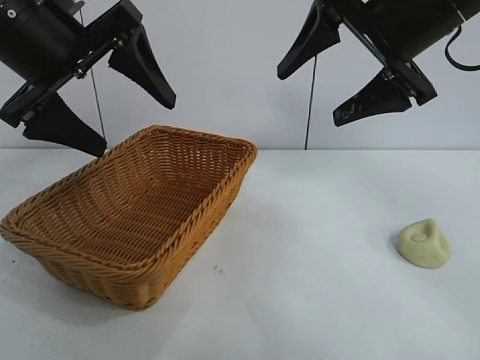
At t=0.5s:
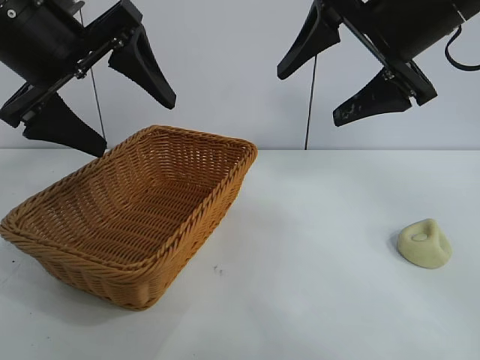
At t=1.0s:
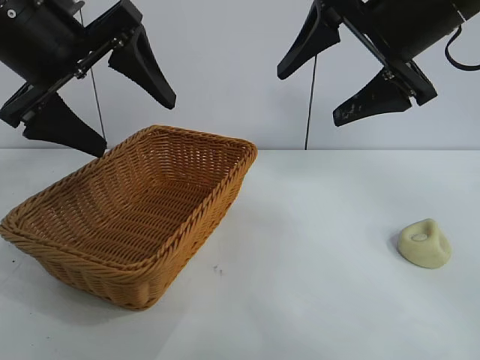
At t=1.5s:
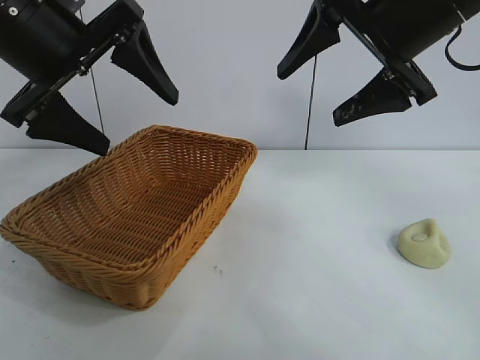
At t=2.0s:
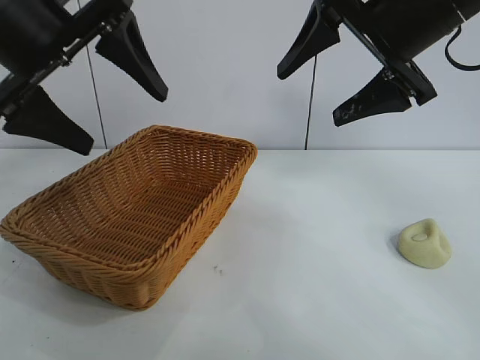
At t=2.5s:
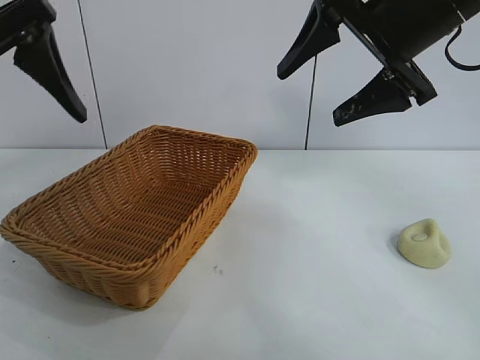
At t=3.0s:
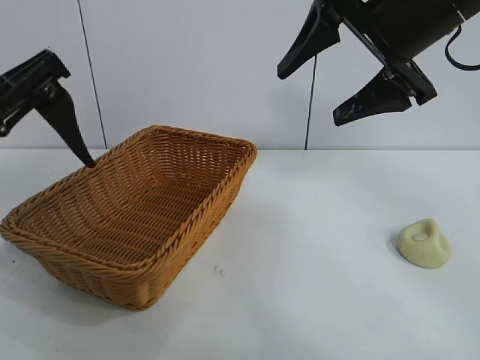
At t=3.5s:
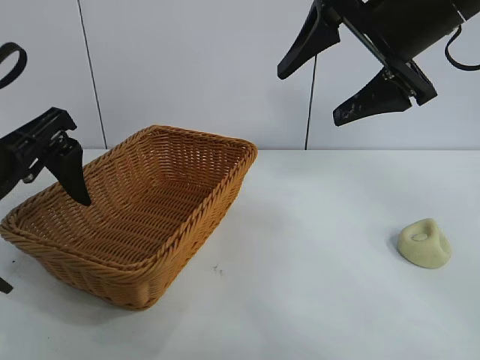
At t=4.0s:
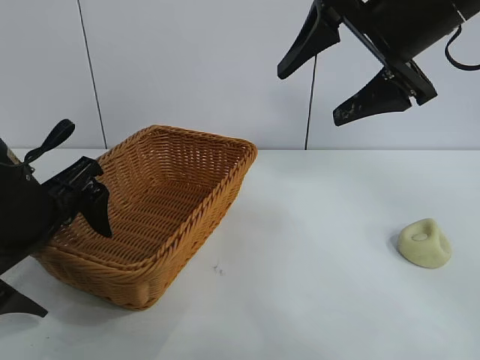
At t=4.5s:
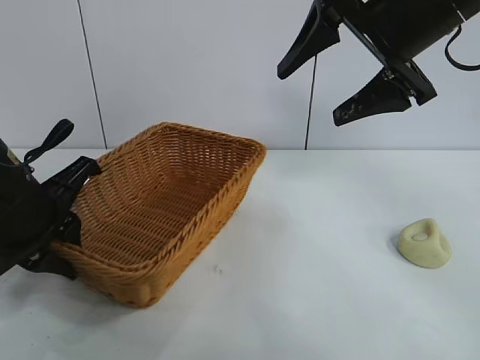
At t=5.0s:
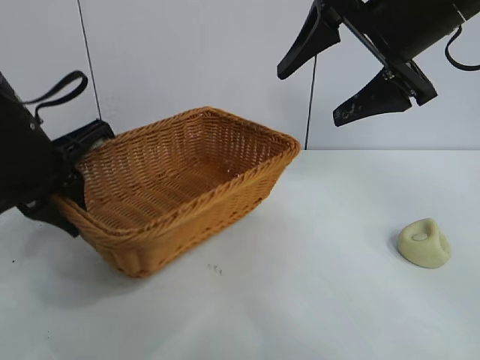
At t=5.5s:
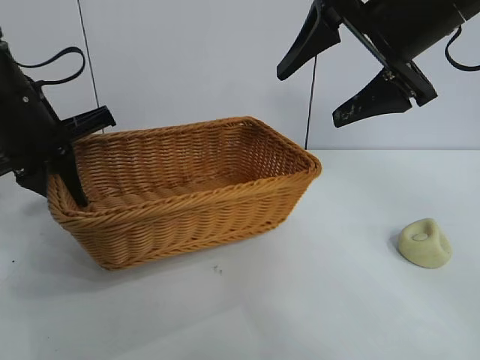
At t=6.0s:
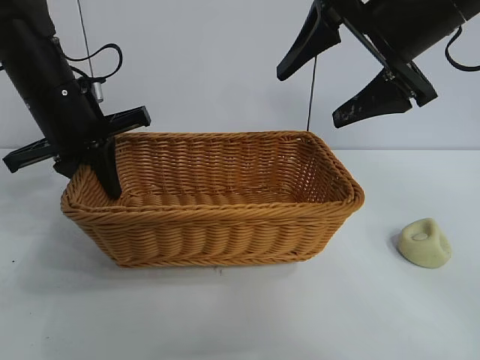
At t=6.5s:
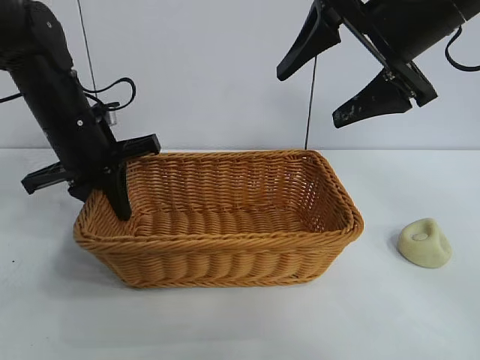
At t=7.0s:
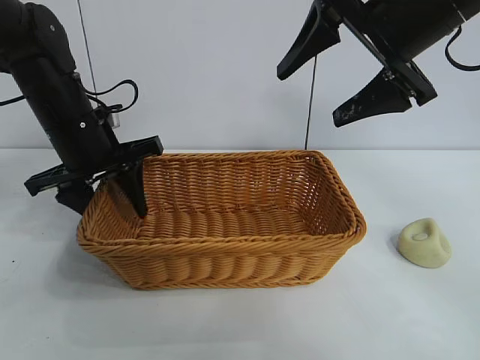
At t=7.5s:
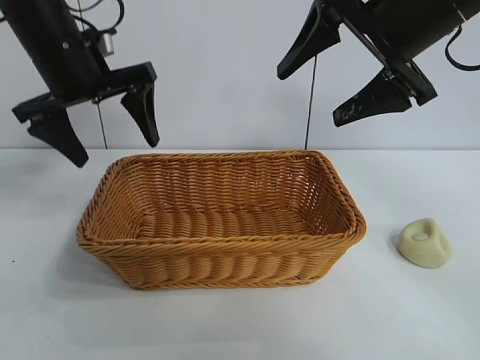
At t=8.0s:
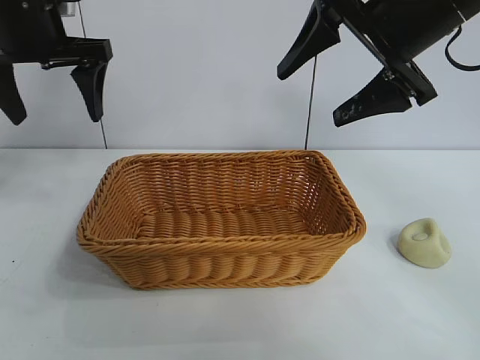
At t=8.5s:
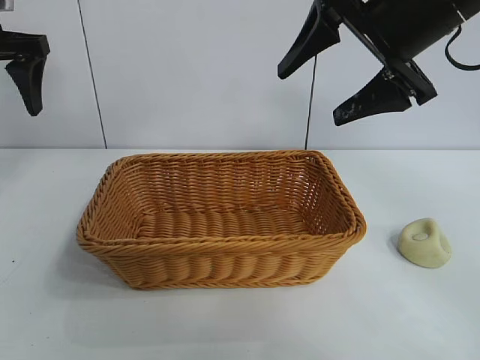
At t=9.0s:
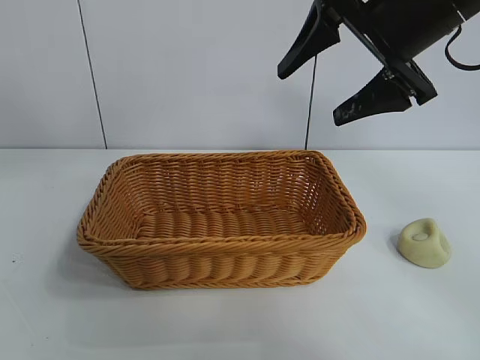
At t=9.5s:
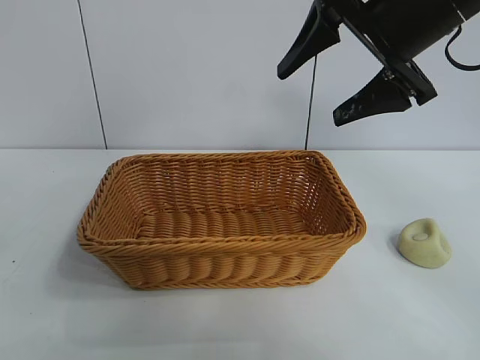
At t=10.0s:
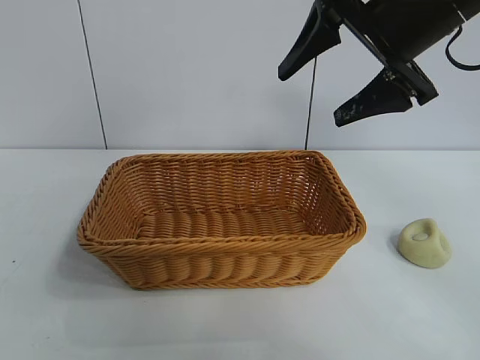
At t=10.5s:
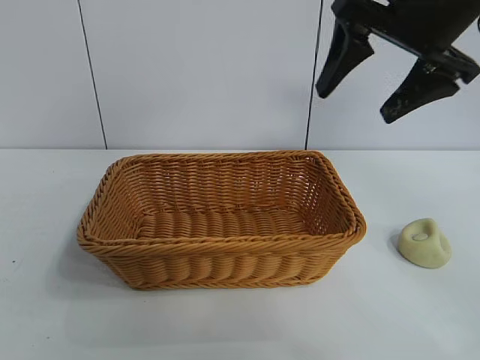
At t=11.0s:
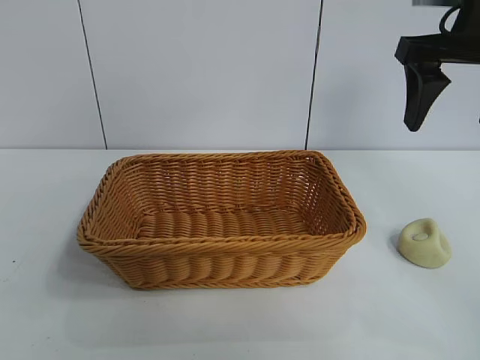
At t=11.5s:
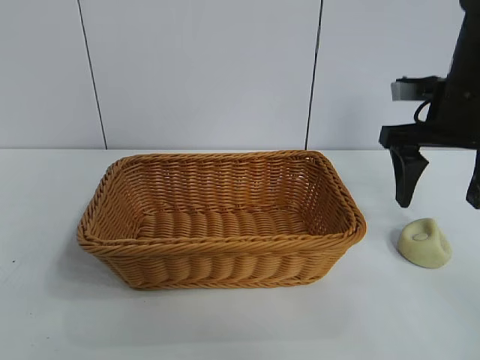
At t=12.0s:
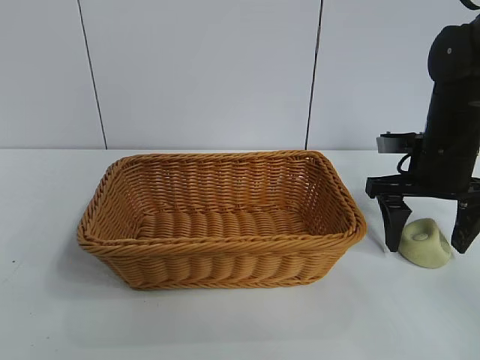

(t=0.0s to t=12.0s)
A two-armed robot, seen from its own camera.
Task of the whole recording: pick up the egg yolk pastry and put it into the basket.
Step, t=1.5s - t=4.5s: Grasp the basket with left gripper.
Step, t=5.0s - t=7.0s: Place the basket in the center of view with left gripper.

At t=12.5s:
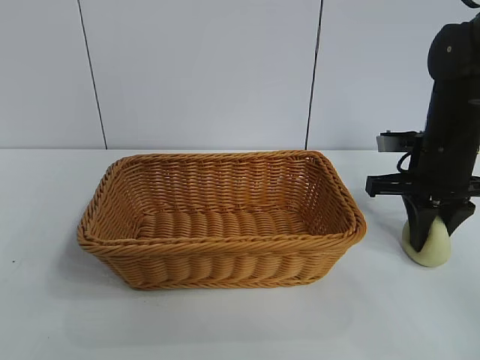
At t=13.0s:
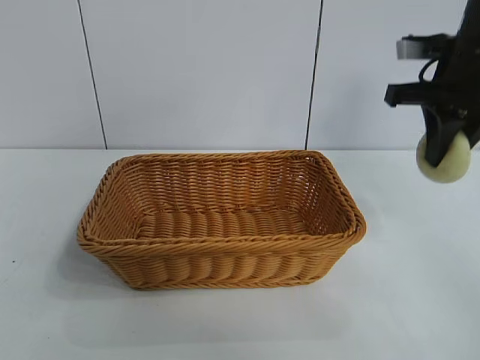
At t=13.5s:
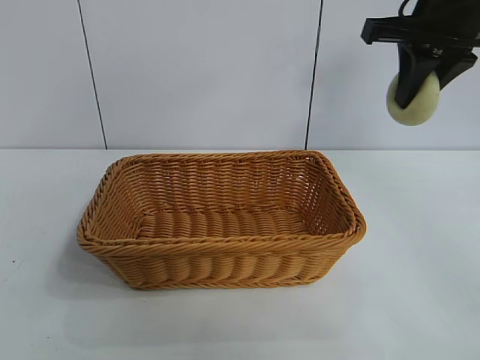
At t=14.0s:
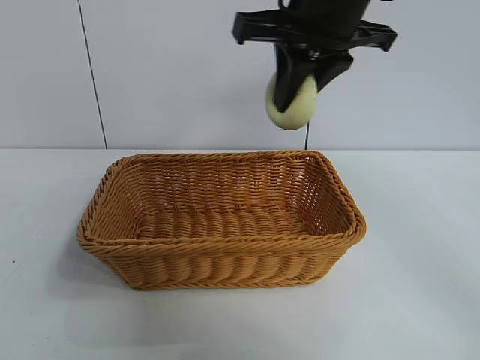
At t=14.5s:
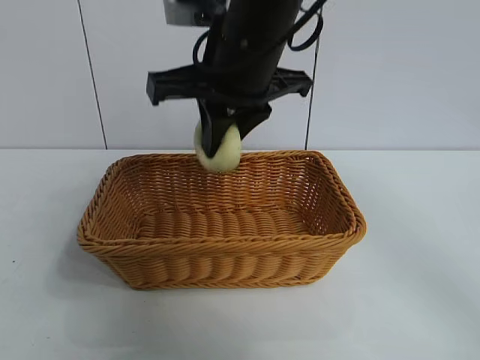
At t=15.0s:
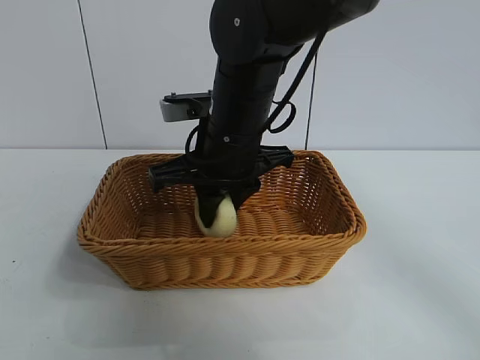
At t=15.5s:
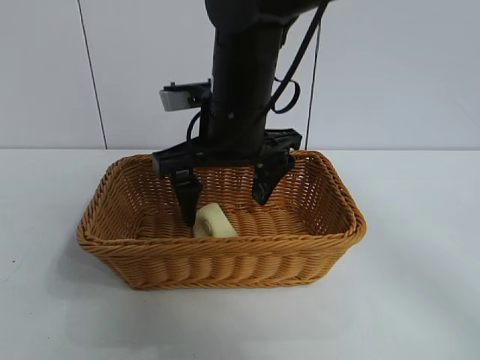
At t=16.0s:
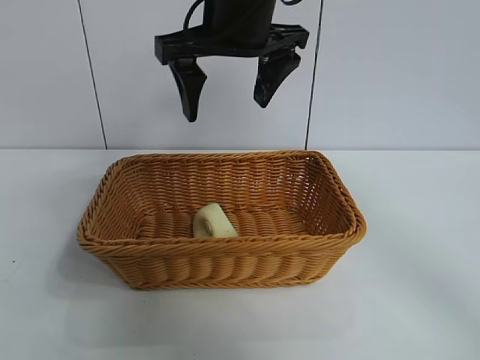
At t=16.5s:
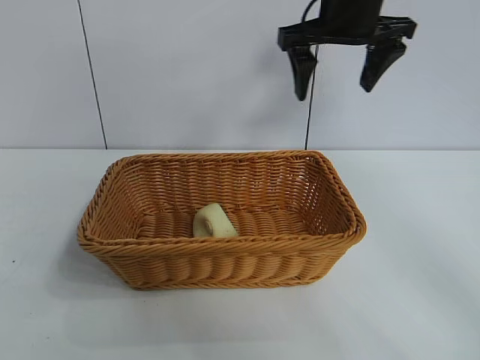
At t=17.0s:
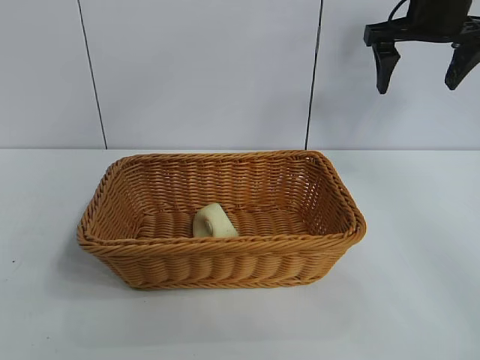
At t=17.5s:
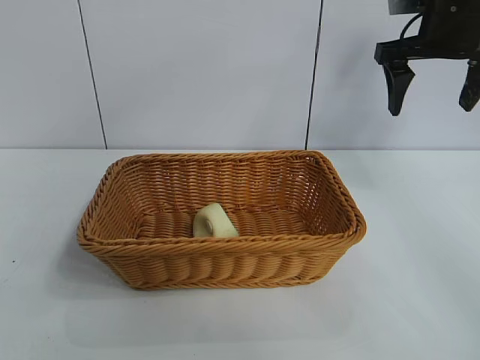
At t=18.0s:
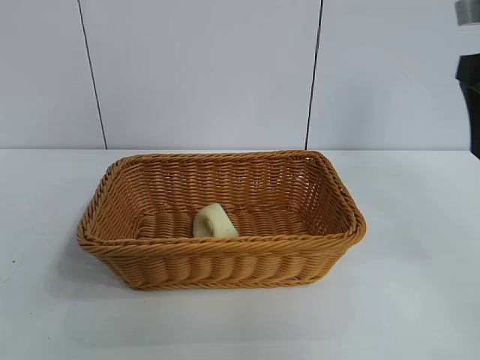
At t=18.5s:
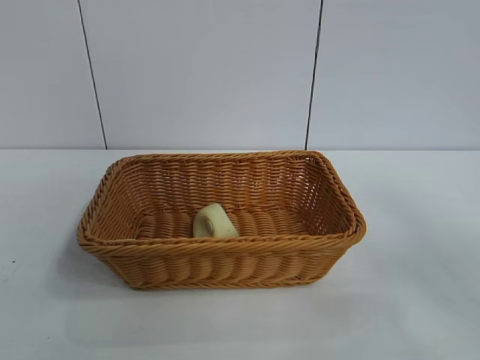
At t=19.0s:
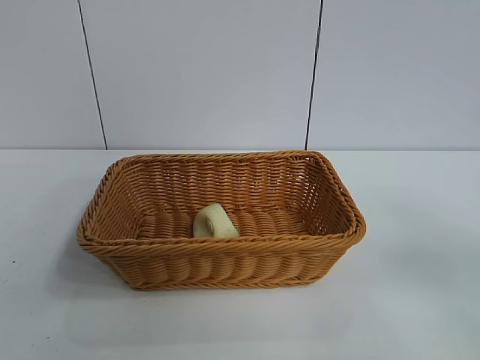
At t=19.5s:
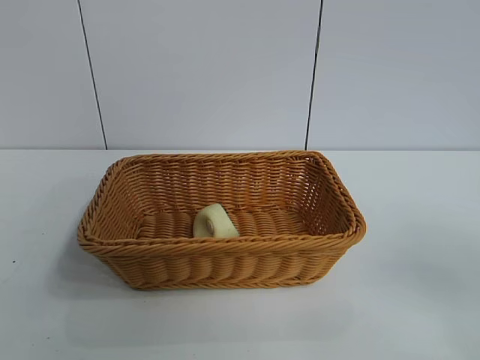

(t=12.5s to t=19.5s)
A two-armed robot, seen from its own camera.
Task of the whole recording: pick up the egg yolk pastry and put it into the basket.
Step, t=12.5s - t=15.0s: Place the egg yolk pastry in the basket with right gripper.

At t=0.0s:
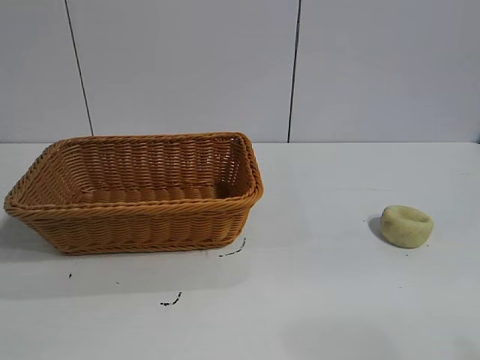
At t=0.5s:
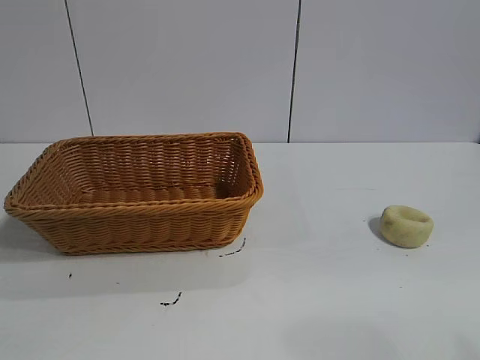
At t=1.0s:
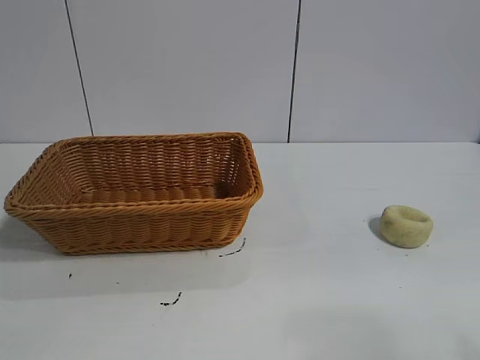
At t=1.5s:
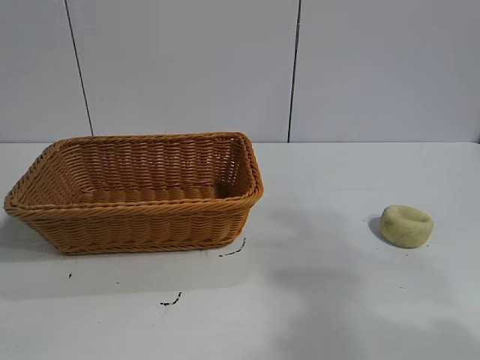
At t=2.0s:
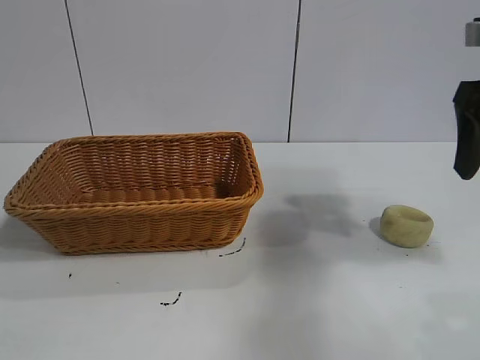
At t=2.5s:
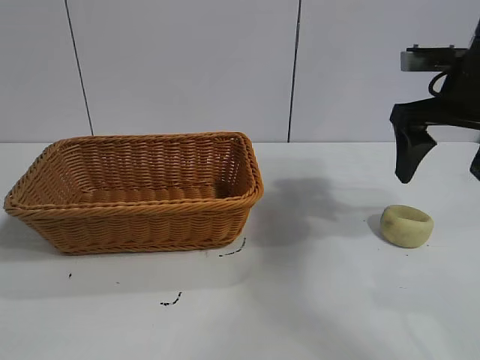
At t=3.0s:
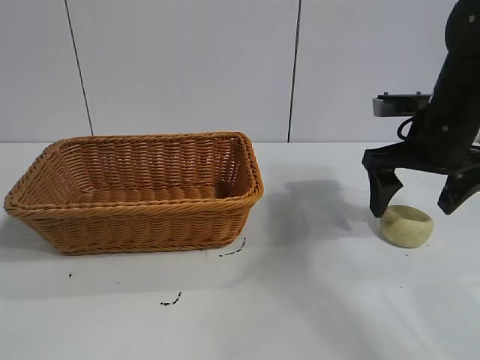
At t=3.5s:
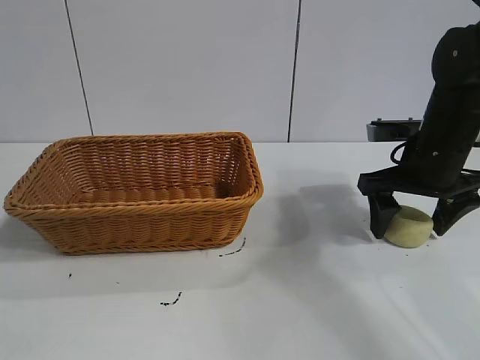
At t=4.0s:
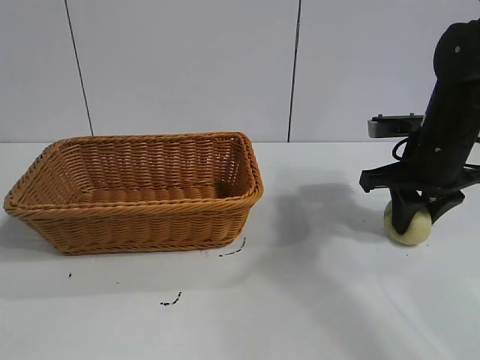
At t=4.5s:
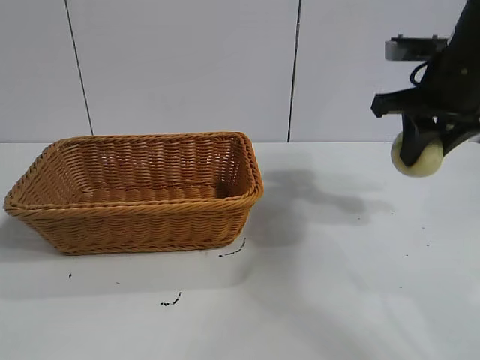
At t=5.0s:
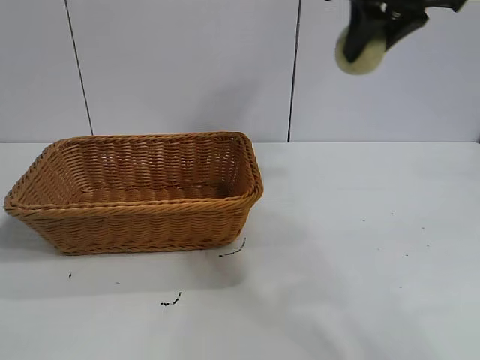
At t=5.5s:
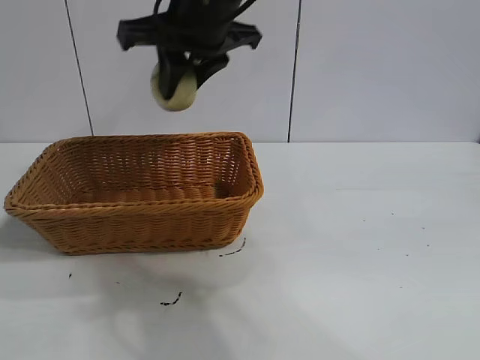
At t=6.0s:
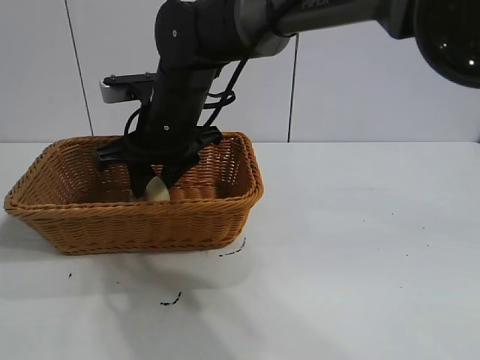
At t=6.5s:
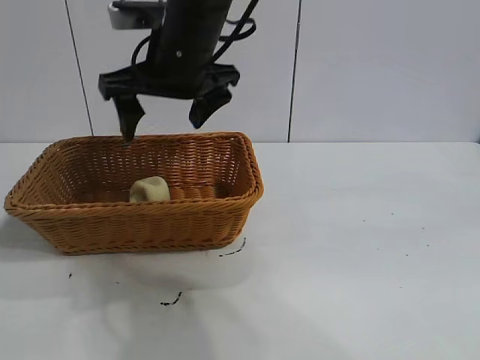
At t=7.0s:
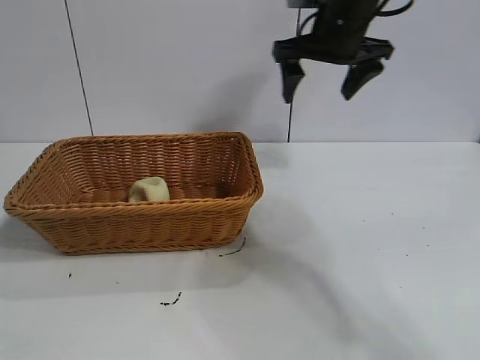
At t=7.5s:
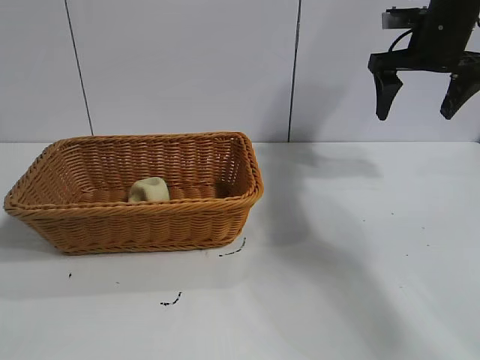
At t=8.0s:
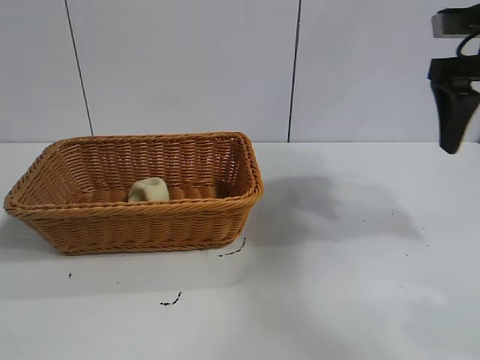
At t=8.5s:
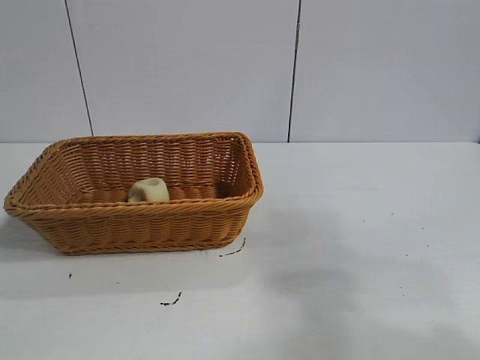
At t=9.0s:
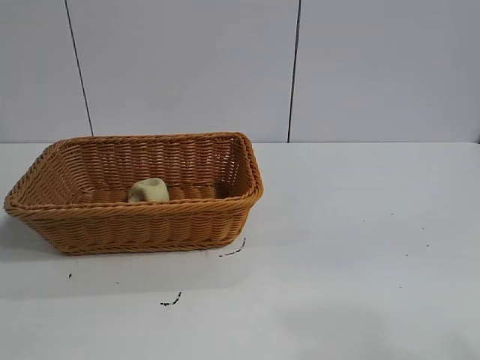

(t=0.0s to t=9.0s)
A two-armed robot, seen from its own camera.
Task of the whole recording: pick up the egg yolk pastry and put it into the basket.
Step, t=1.0s - t=3.5s: Grasp egg yolk pastry with right gripper.
Step, t=4.5s - t=6.0s: Place the egg yolk pastry in the basket with right gripper.
